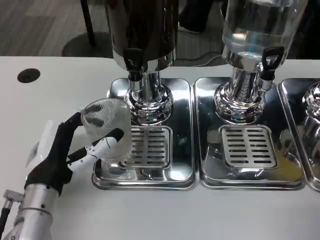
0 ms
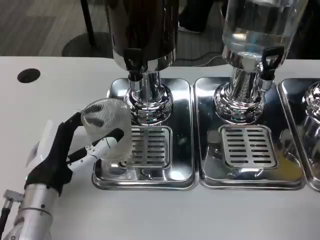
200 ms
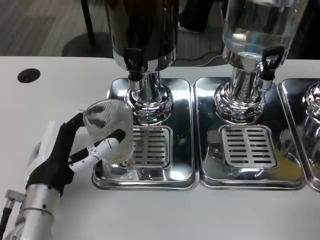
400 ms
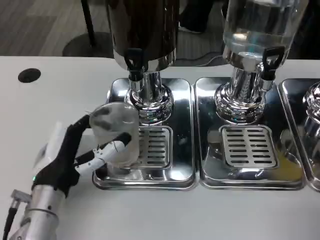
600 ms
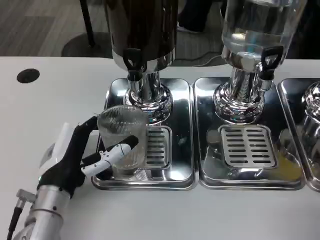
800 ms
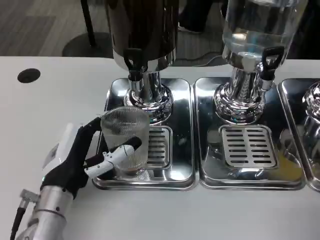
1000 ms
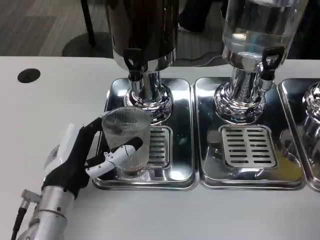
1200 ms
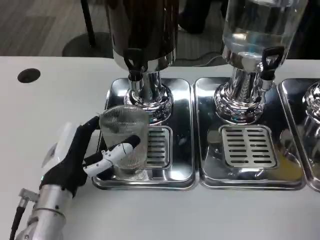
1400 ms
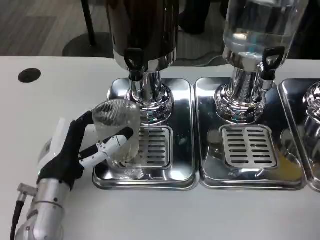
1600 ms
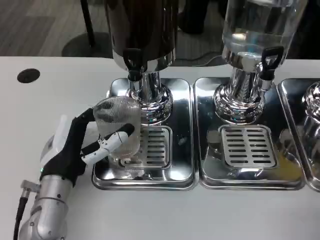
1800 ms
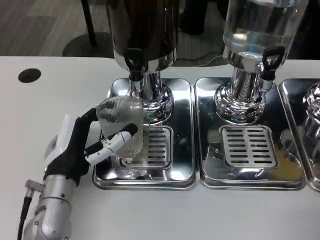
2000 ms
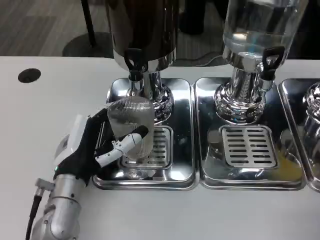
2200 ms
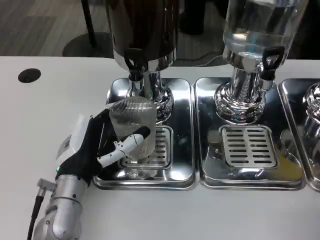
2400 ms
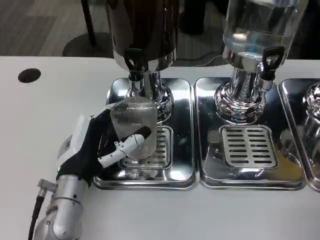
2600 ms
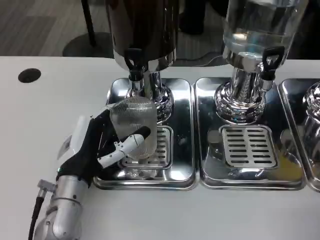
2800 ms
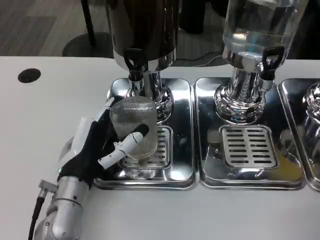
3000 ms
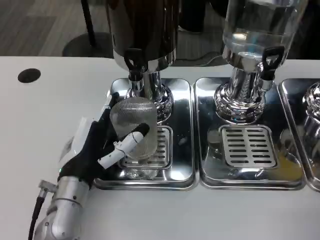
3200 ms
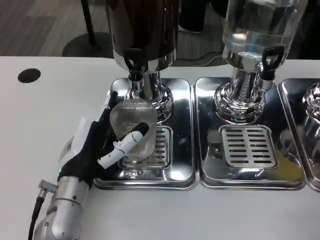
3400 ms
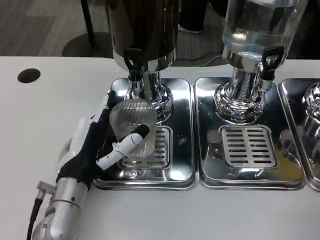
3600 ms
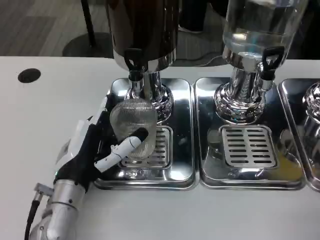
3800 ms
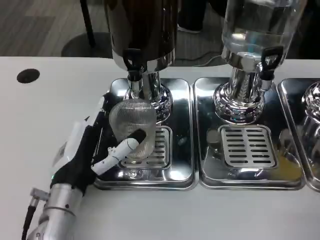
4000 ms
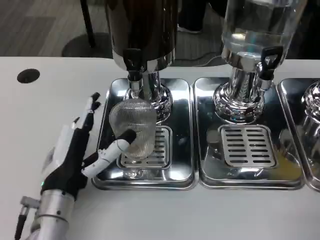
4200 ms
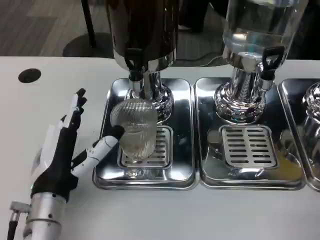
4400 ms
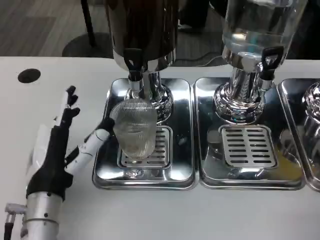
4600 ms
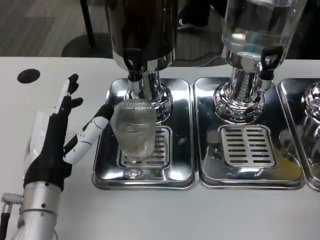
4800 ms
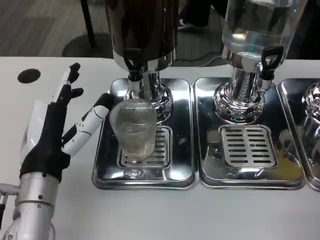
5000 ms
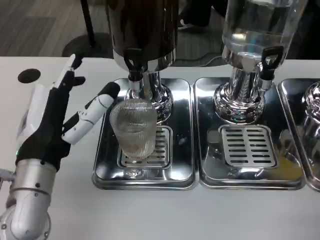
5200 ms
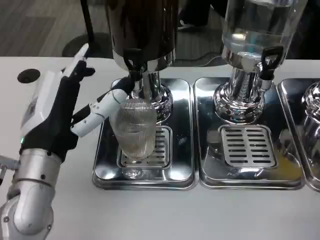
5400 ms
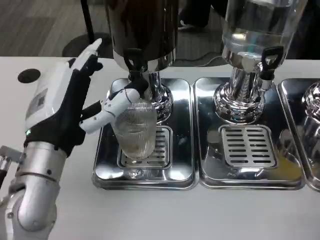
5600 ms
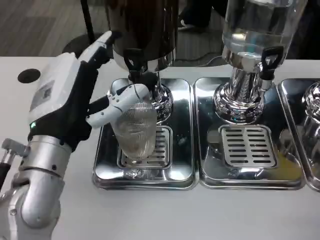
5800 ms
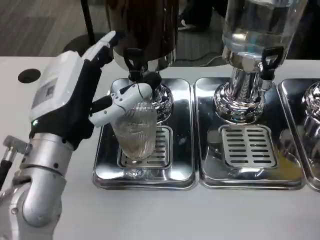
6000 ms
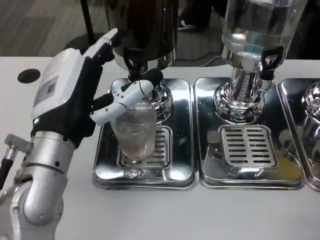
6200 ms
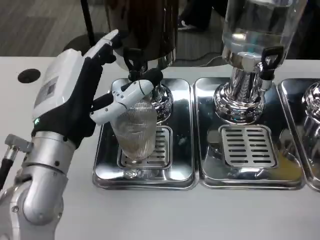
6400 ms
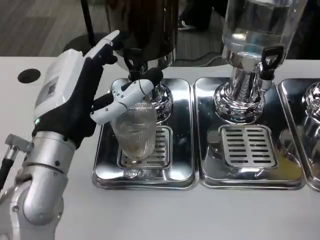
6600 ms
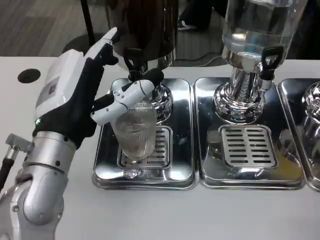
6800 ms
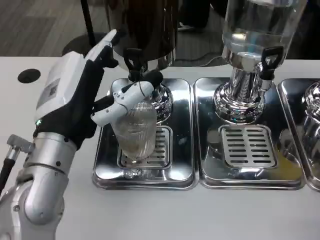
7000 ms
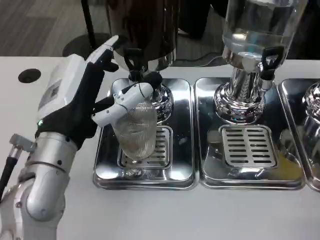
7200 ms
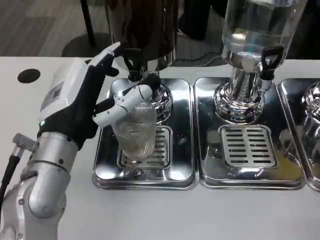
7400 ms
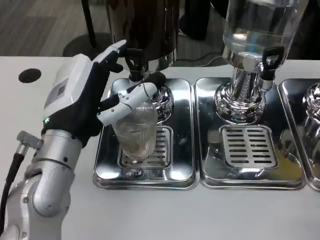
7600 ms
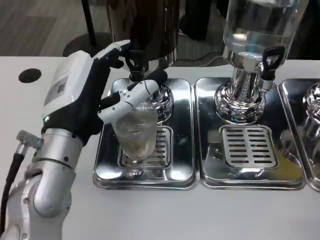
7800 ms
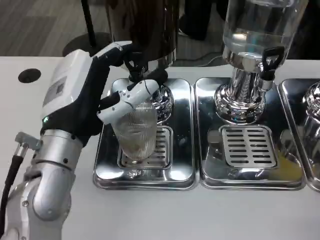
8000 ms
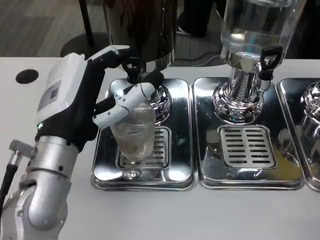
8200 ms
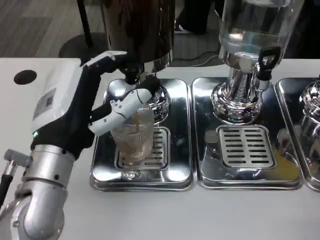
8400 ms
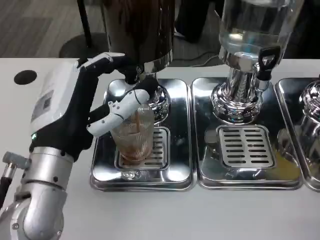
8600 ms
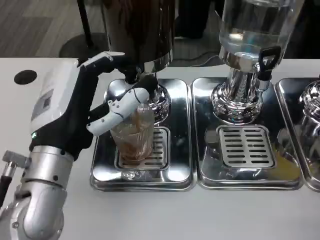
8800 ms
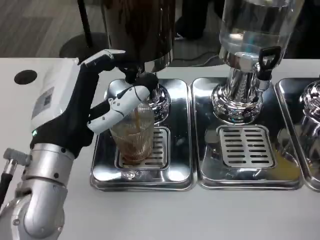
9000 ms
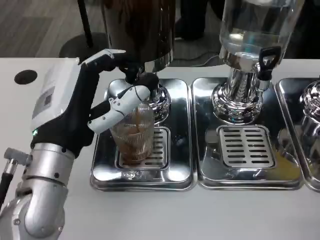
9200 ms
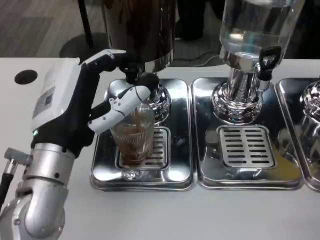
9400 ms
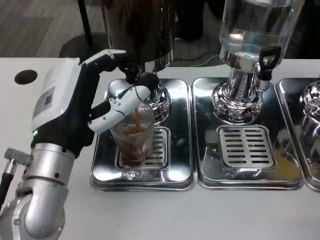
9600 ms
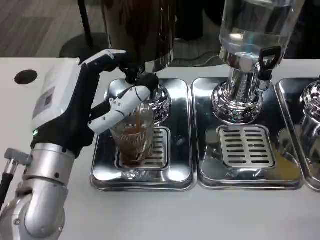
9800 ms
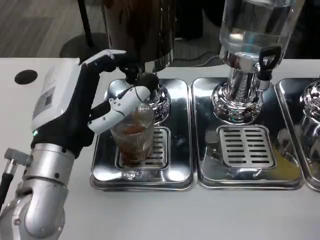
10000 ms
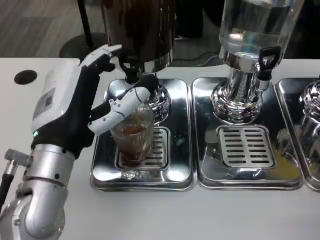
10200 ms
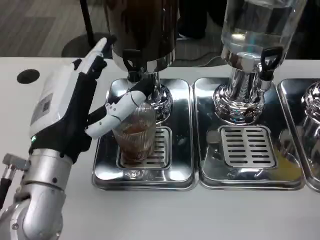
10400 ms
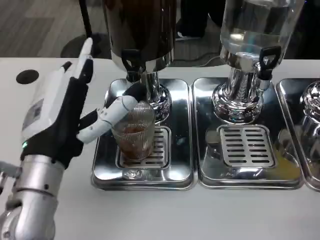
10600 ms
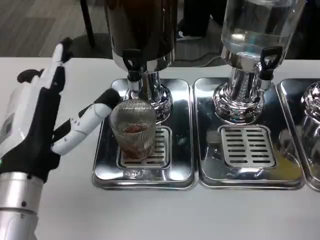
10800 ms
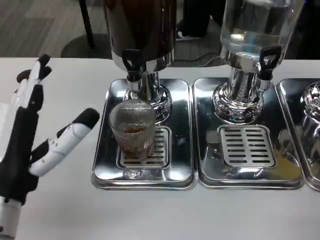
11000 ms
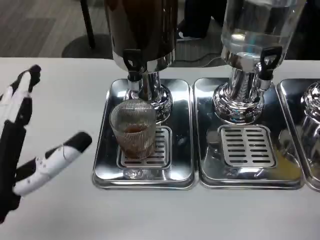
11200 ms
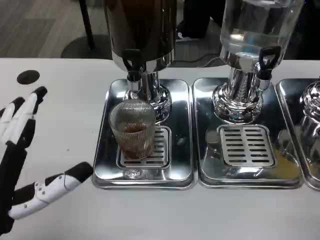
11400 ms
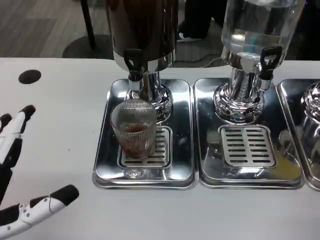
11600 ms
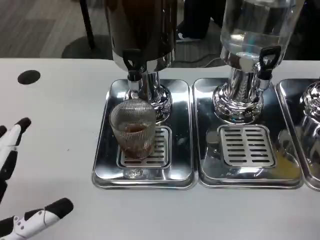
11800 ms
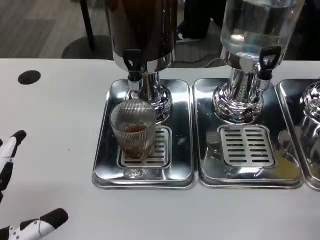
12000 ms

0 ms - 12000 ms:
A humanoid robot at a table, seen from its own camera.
Task of the whole recording: Grasp the cup under the faucet to collect the drink, then remove the cup.
0 ms - 4400 ms: There are only small adjustments of the hands.
4400 ms - 6000 ms: The left hand is displaced upward by about 15 cm.
6000 ms - 7600 ms: The hands make only small movements.
9000 ms - 10400 ms: Both hands stay about where they are.
10400 ms - 12000 ms: The left hand heads backward and to the left, covering approximately 15 cm.

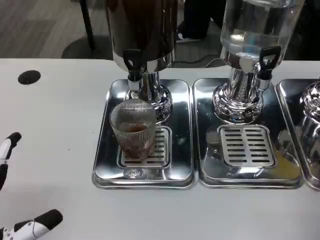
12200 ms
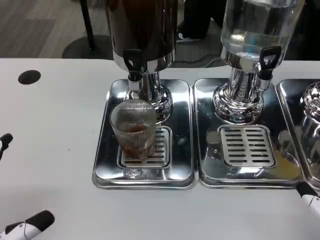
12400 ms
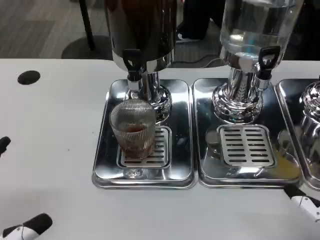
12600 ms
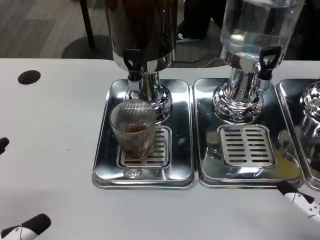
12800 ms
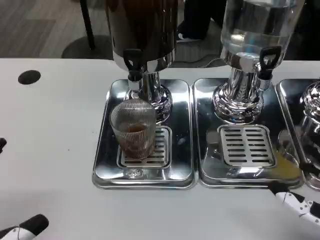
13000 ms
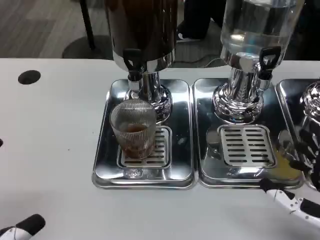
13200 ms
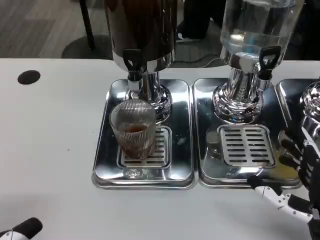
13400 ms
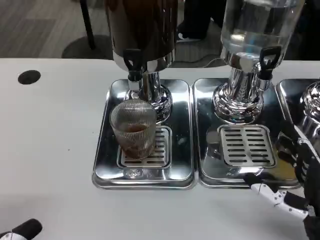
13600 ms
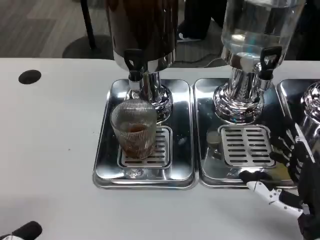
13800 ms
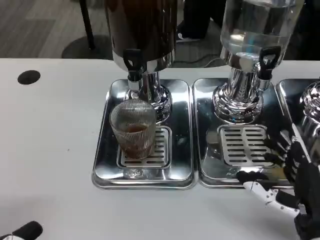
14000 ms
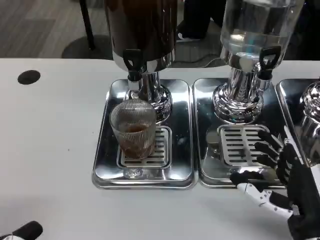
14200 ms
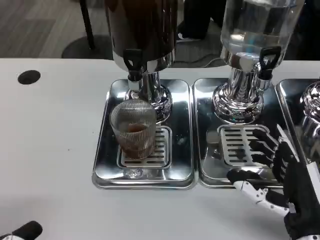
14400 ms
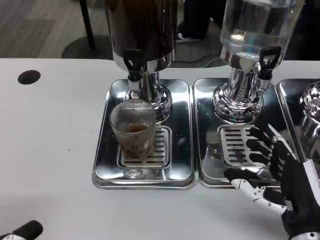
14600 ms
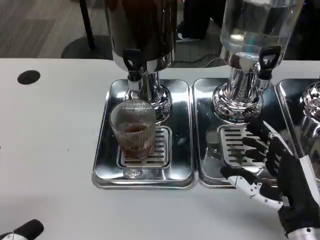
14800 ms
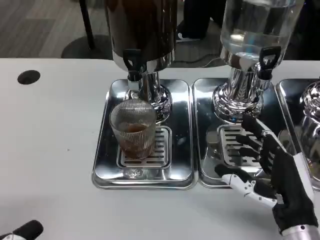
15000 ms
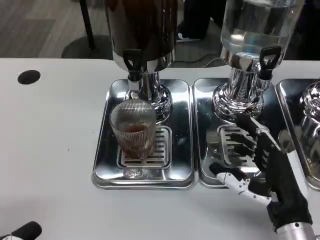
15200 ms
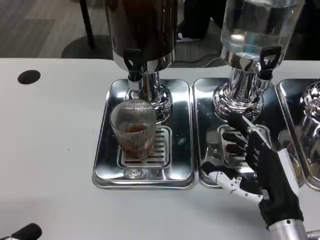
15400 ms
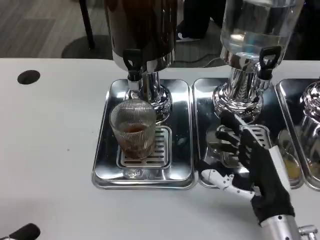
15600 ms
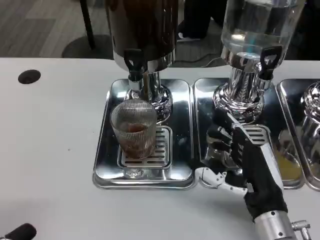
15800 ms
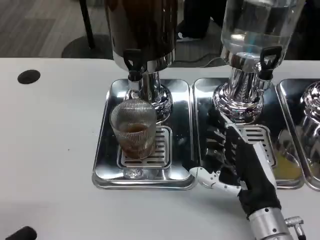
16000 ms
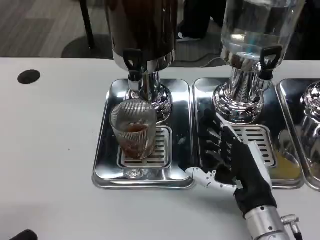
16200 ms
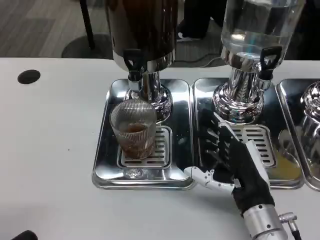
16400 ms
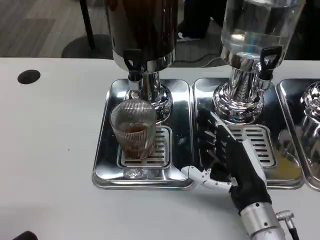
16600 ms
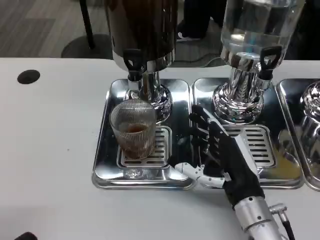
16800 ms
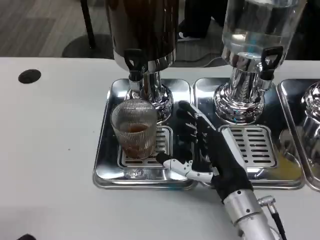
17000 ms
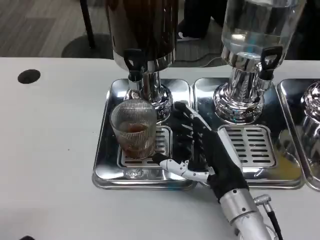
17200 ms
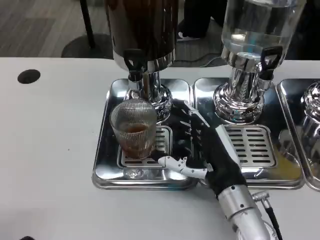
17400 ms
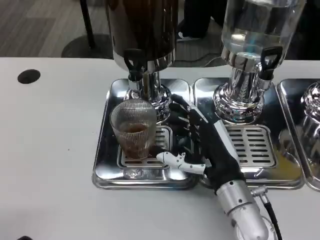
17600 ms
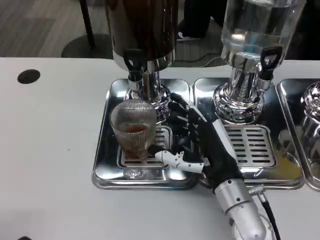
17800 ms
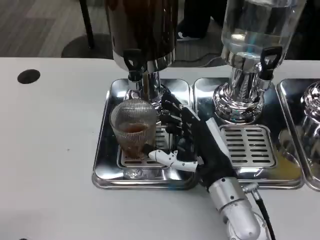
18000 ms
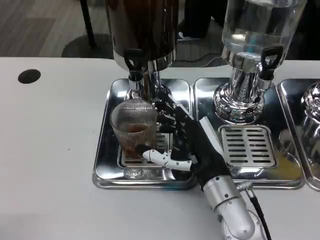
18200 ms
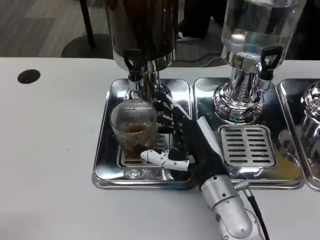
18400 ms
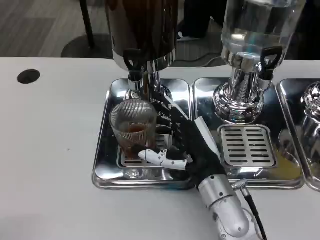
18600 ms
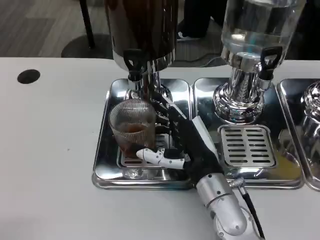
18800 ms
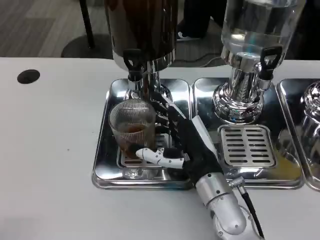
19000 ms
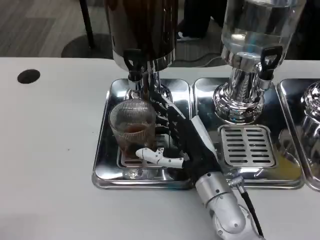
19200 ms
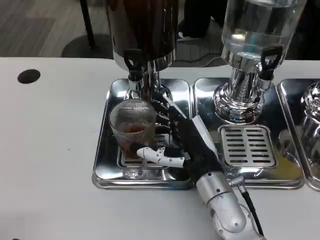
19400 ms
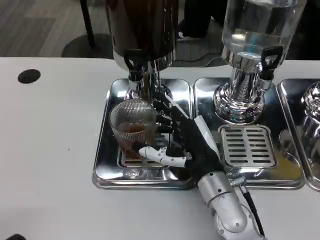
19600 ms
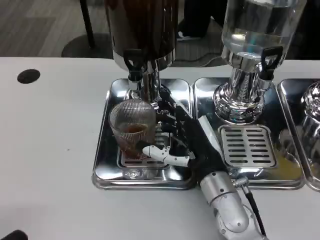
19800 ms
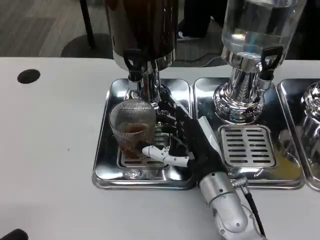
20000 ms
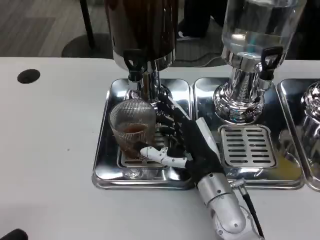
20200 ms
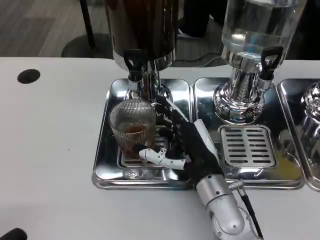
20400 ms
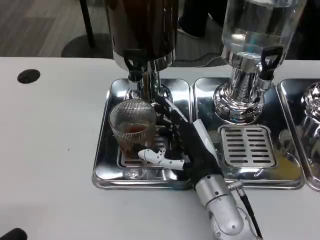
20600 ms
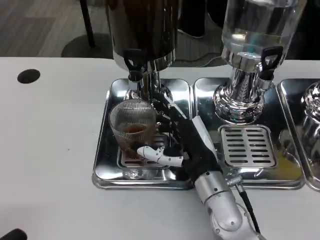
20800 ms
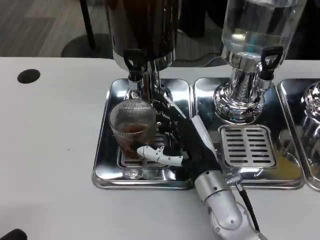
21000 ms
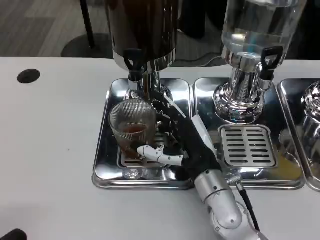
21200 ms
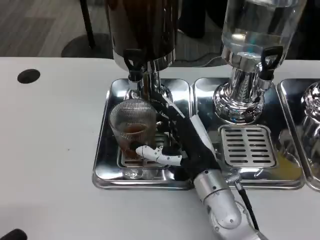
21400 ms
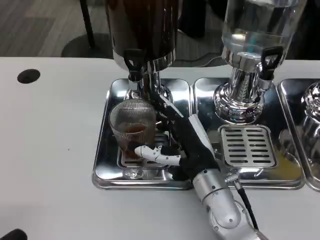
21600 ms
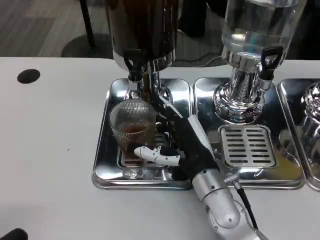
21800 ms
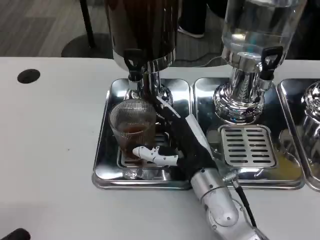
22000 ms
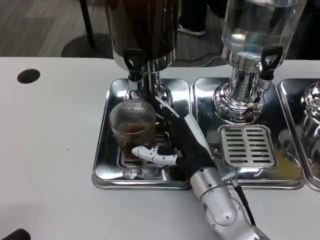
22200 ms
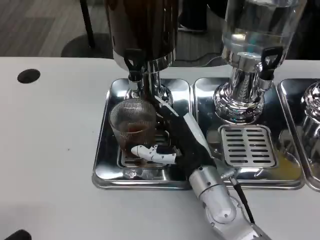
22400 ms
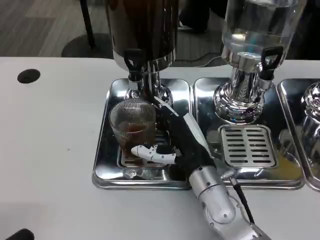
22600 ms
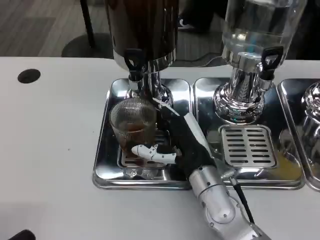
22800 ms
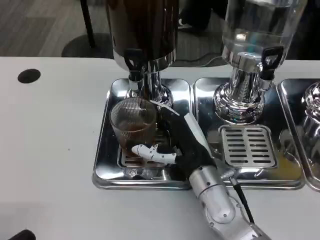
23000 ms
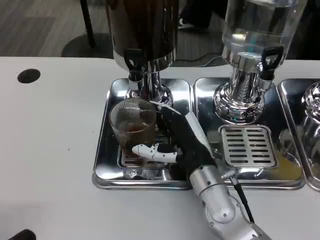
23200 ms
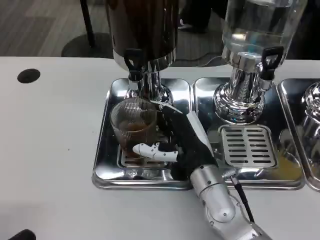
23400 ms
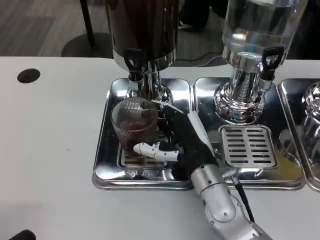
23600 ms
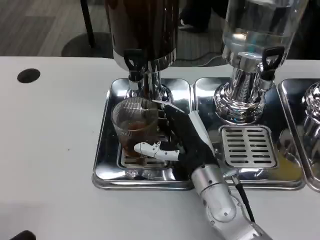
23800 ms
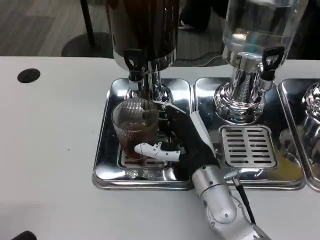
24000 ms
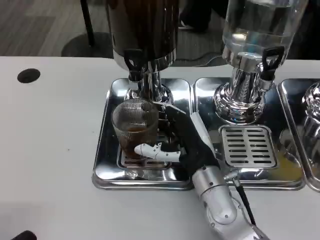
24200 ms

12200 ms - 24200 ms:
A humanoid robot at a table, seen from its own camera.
Task of the whole recording: Grasp the cup under the faucet to collect the drink, then remove the cup.
12200 ms - 13800 ms: The right hand goes approximately 5 cm forward.
13800 ms - 15200 ms: The hands make only small movements.
15200 ms - 16600 ms: The right hand moves roughly 5 cm.
16600 ms - 18200 ms: The right hand changes place by approximately 5 cm.
18200 ms - 19800 ms: The hands move only a little.
19800 ms - 21200 ms: The two hands keep their place.
21200 ms - 24200 ms: Both hands stay about where they are.
